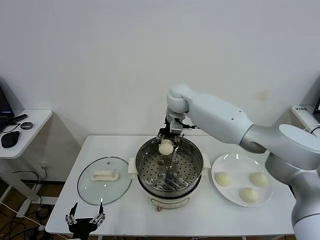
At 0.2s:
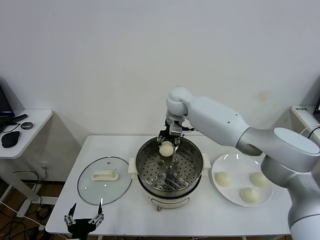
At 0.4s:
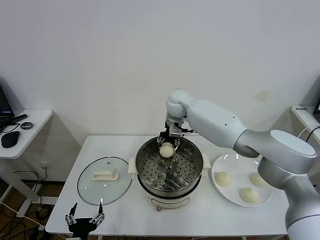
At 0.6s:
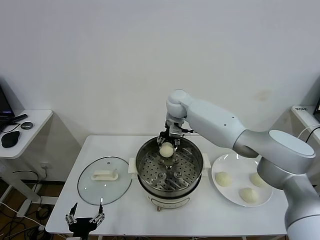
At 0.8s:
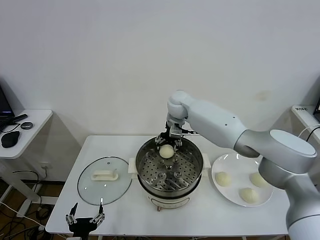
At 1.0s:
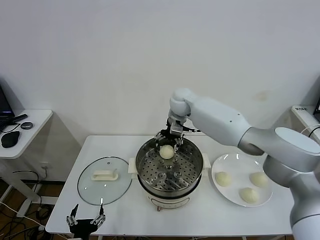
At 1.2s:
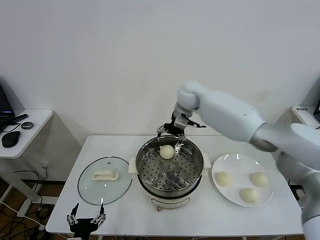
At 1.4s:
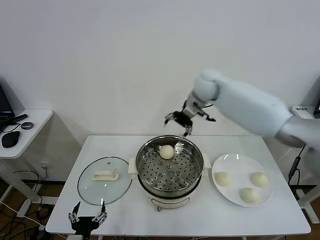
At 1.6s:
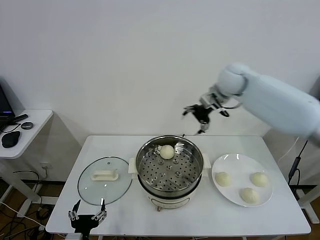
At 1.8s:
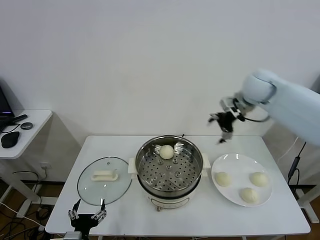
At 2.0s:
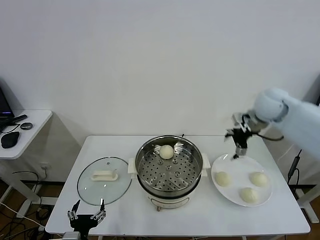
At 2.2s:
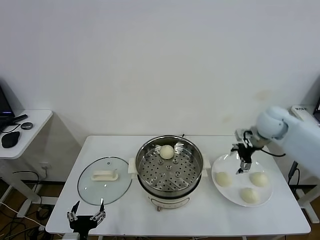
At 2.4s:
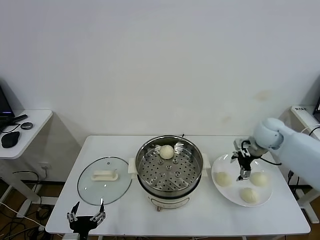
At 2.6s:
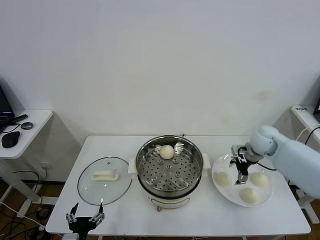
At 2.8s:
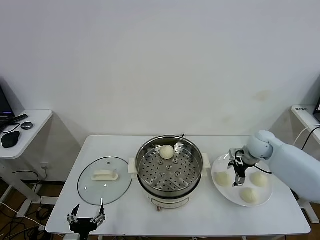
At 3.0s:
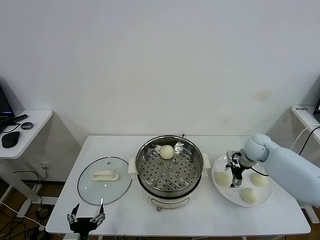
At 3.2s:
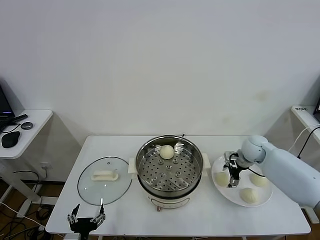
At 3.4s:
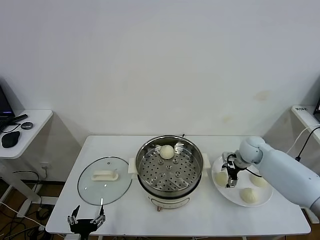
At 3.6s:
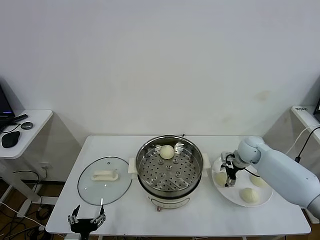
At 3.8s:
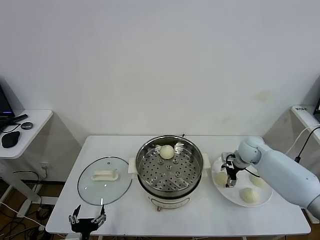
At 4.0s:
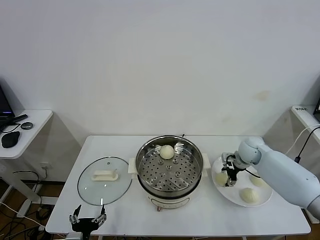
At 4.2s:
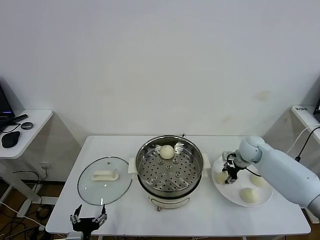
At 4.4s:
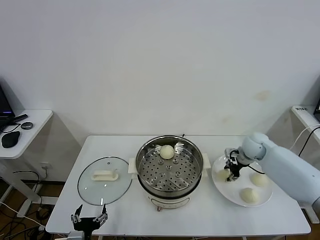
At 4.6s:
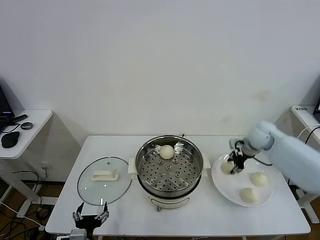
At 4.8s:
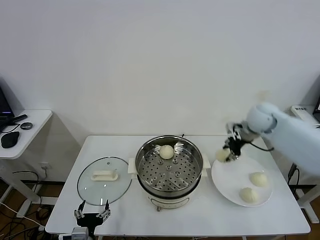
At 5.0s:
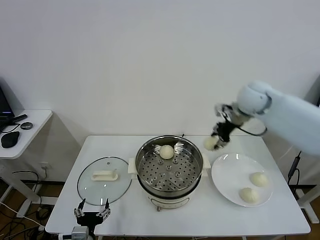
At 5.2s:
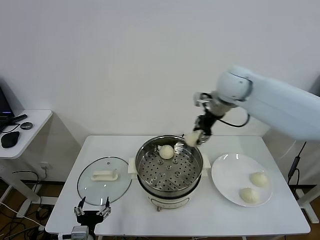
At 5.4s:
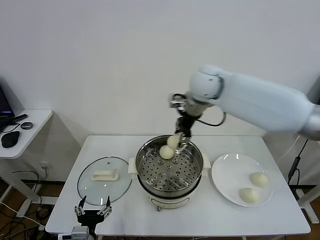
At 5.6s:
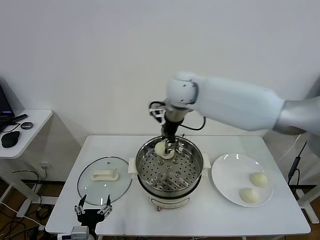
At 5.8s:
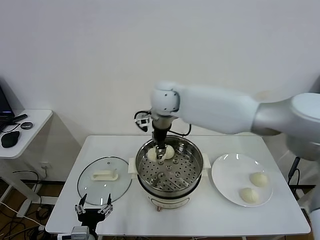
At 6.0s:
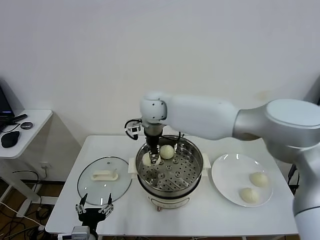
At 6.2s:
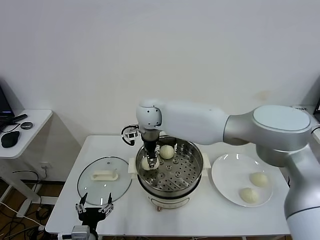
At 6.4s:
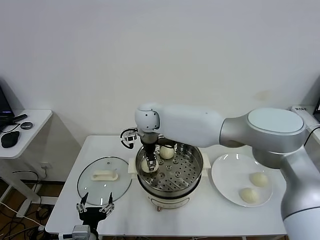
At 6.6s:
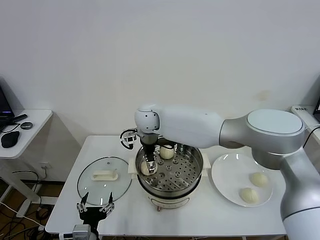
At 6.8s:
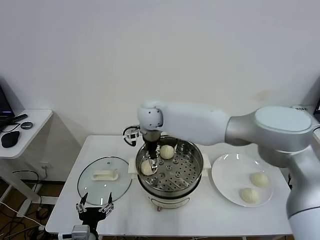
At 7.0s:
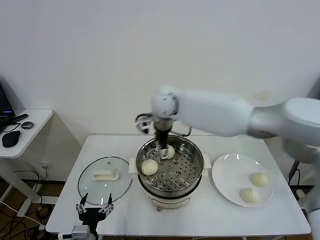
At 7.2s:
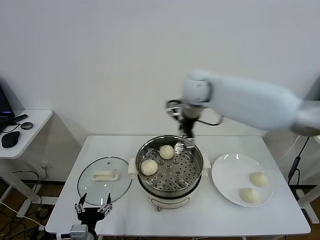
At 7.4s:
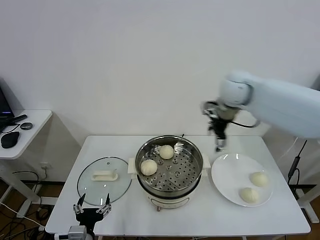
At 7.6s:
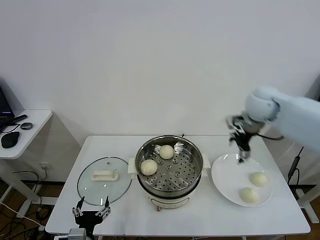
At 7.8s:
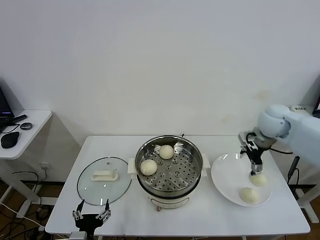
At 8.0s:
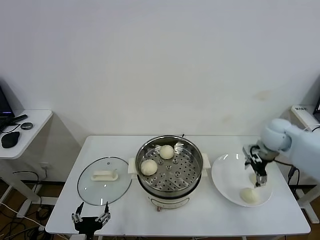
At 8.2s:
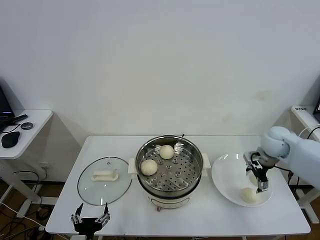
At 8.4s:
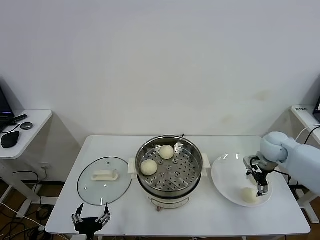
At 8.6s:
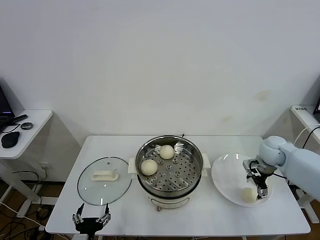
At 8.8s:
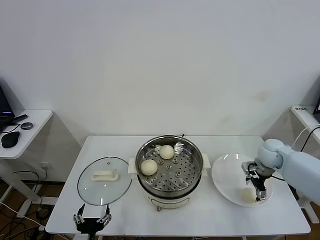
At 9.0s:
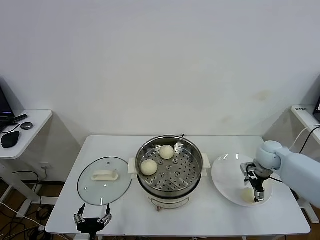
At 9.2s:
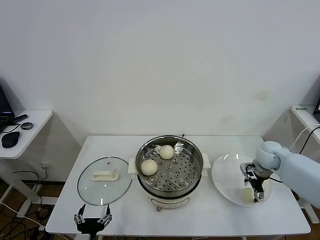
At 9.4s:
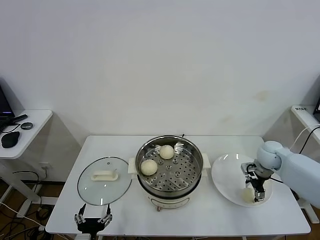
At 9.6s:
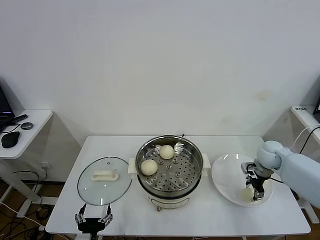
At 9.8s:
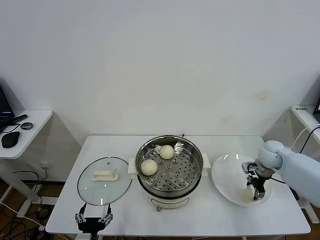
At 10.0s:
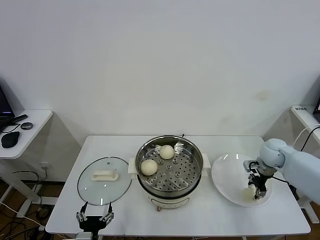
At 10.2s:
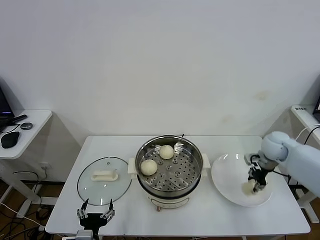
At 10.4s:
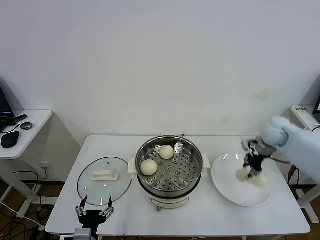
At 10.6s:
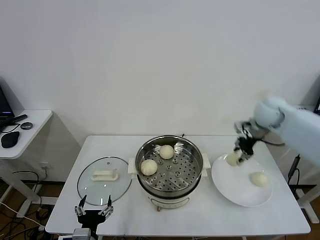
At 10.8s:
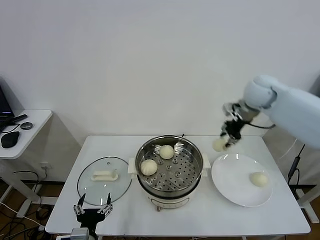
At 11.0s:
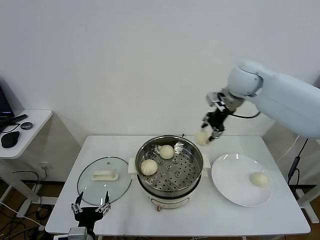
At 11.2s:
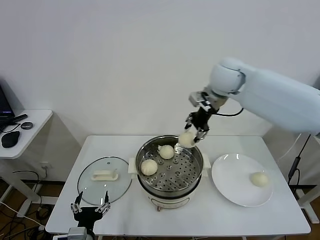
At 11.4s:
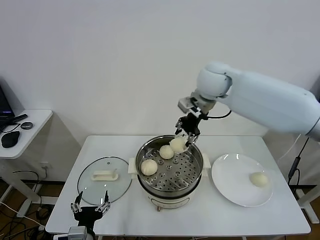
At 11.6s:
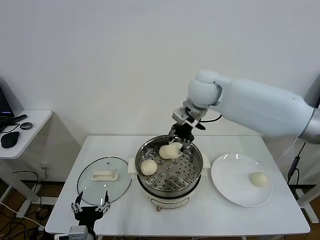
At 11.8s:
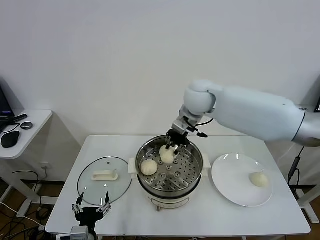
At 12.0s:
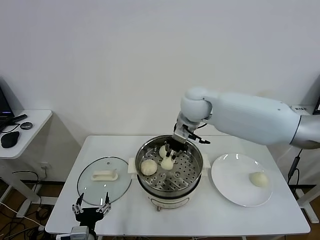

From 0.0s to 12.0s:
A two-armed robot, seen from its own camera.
Task of the whole recording: take steamed baozi put them in steamer.
Step, from 1.0s to 4.0s: Grasp the baozi in the plate with right gripper.
Step, from 4.2s to 6.8s: Place the baozi on the steamer with right gripper.
Step, from 7.0s to 9.8s: Grasp the baozi in the plate with right gripper.
From 0.0s to 1.6s: The right gripper heads to the right and upward, covering some 20 cm, and opens.
From 1.6s to 3.0s: The right gripper travels downward and to the right by approximately 25 cm.
From 3.0s to 4.4s: The right gripper closes.
From 4.4s to 6.0s: The right gripper heads to the left and upward, covering approximately 40 cm.
From 6.0s to 7.6s: The right gripper shifts roughly 35 cm to the right, and opens.
From 7.6s to 9.0s: The right gripper travels downward and to the right by approximately 20 cm.
From 9.0s to 10.4s: The right gripper travels upward by some 10 cm, and closes.
From 10.4s to 12.0s: The right gripper moves to the left, roughly 30 cm.

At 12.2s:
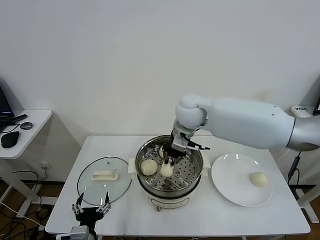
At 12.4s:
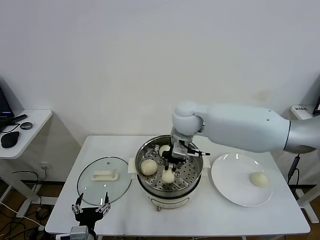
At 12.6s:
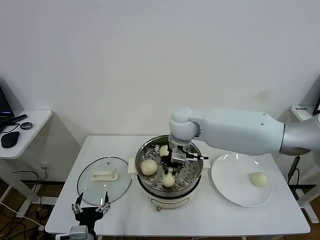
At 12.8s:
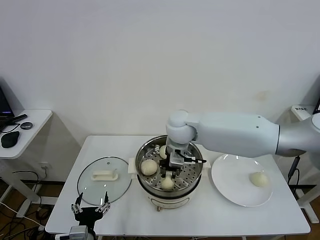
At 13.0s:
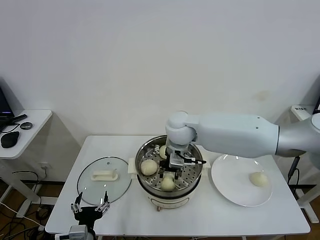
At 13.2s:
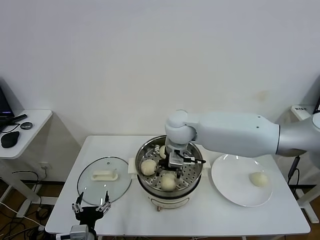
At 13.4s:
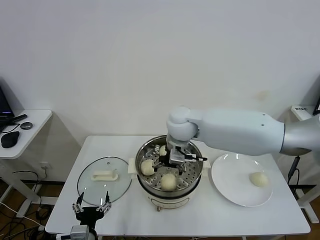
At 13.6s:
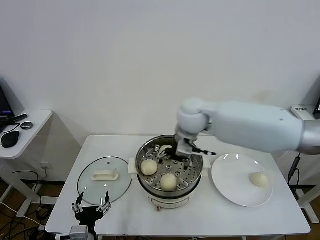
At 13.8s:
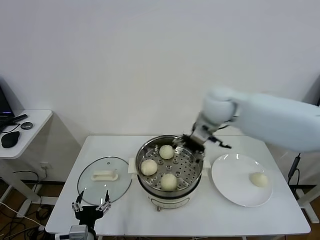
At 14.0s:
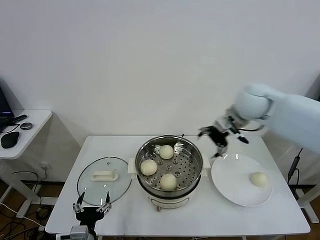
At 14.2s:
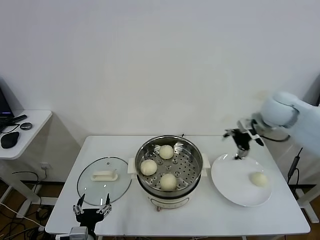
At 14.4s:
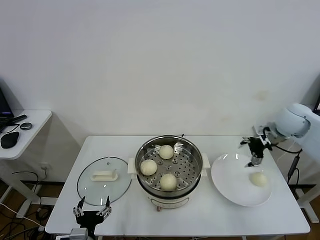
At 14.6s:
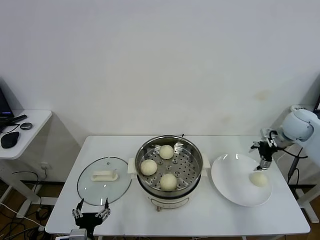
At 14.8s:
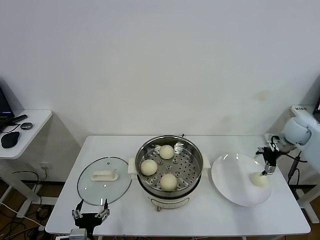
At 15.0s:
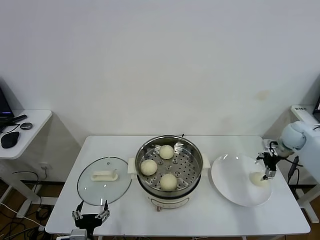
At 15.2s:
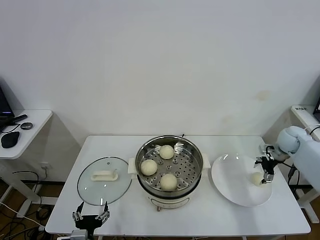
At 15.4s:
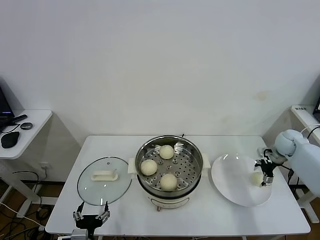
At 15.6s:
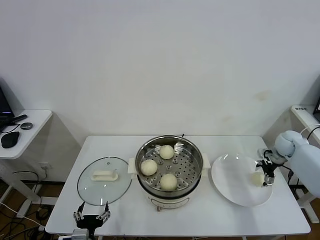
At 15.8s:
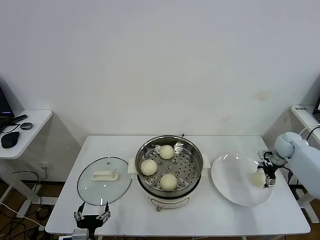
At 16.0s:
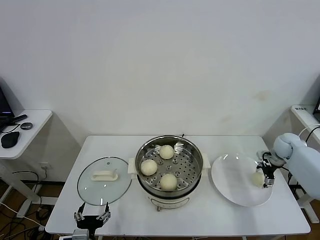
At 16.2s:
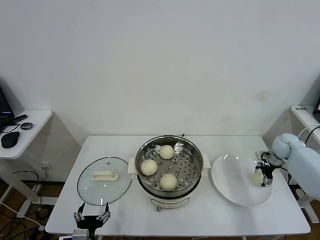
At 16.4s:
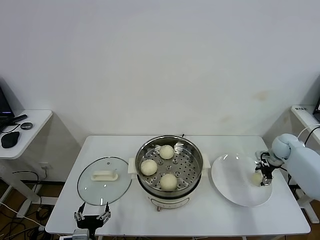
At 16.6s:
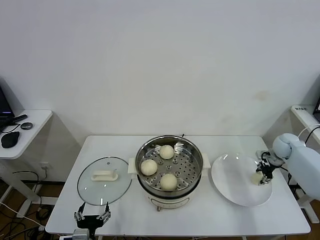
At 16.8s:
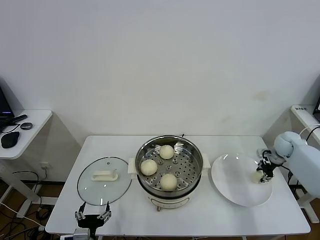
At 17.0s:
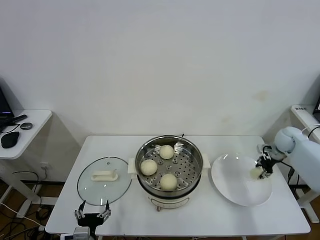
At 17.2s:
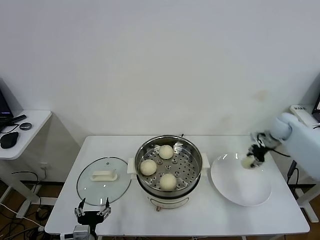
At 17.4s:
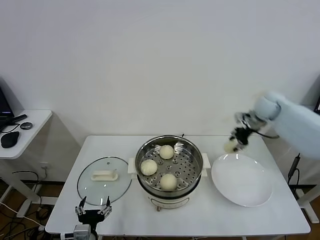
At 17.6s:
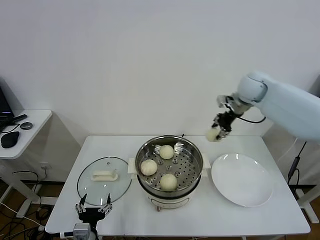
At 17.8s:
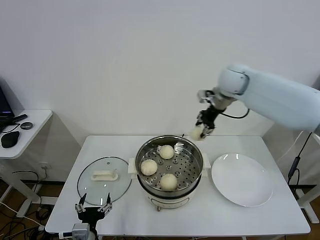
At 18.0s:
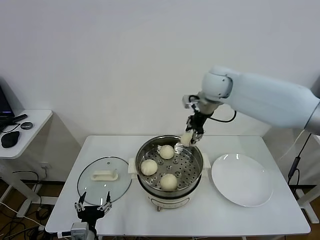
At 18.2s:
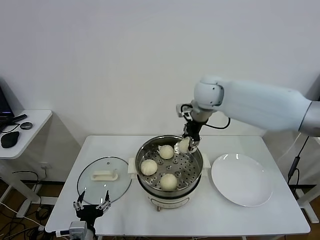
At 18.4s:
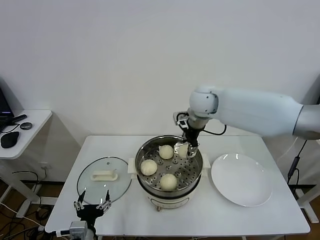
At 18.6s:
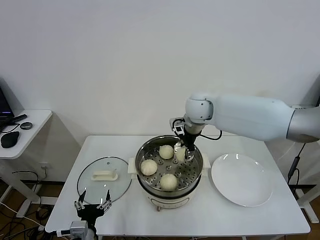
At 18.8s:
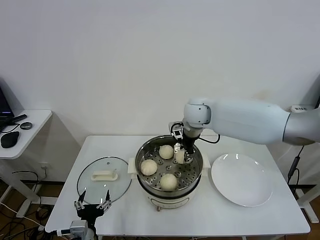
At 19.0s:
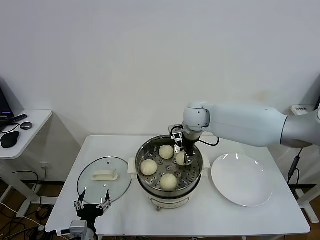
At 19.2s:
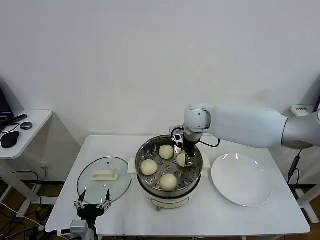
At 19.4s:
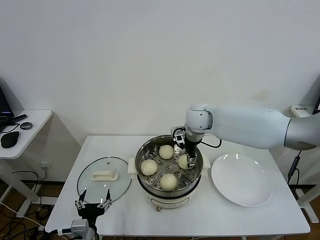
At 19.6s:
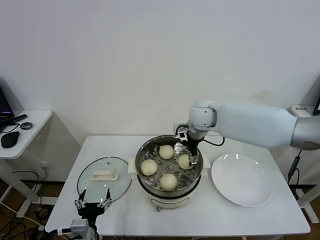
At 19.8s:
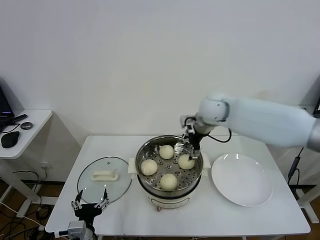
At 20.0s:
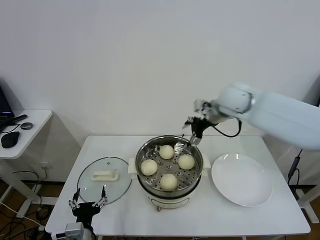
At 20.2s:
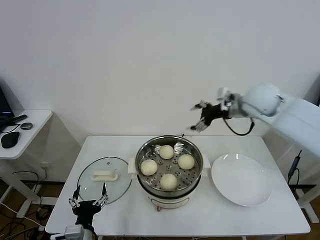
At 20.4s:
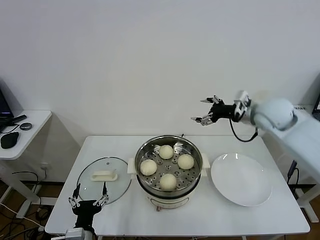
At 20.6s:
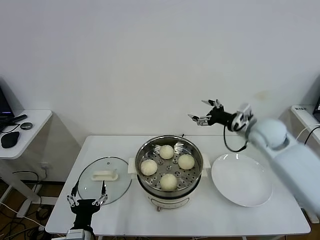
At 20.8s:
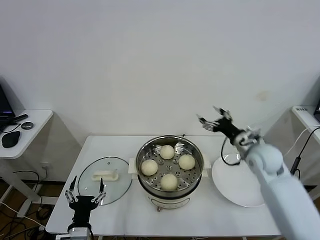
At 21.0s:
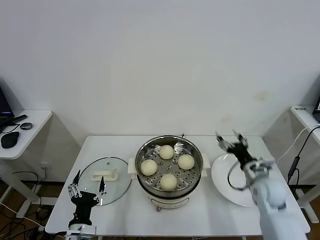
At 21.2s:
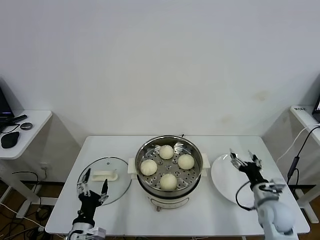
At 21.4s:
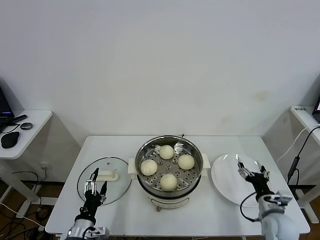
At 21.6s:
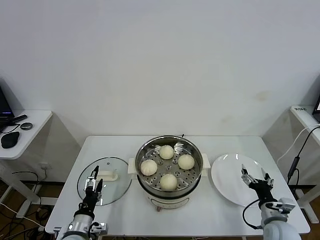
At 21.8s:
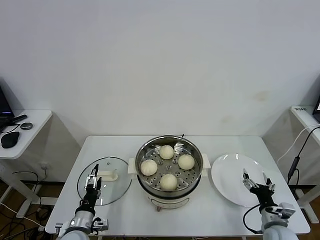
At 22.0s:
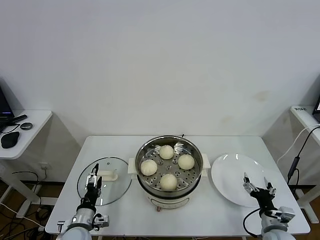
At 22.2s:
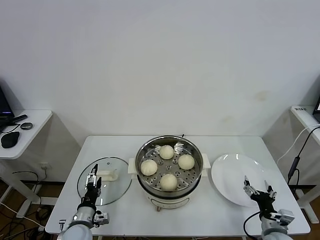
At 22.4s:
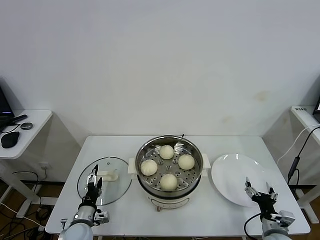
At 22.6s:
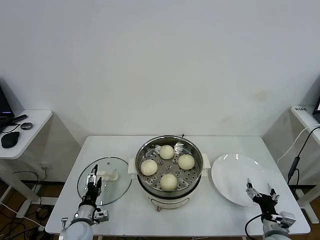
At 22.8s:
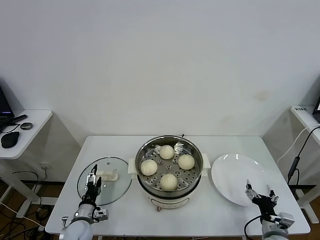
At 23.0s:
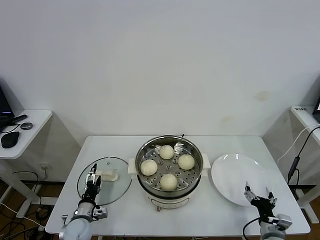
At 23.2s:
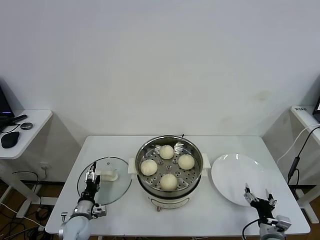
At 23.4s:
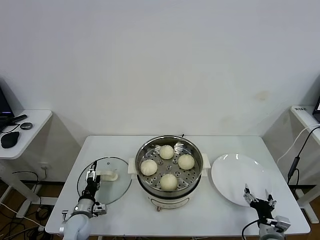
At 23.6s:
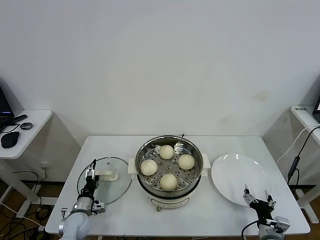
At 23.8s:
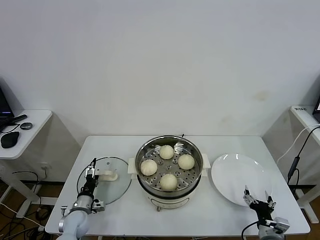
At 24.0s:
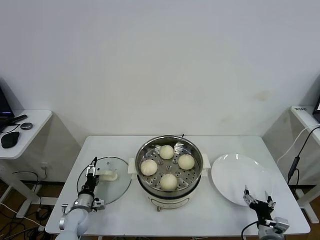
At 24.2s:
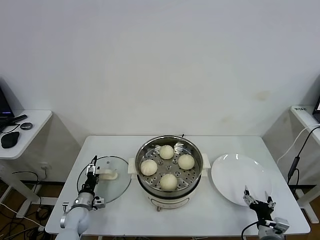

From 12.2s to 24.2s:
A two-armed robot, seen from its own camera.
Task of the whole recording: take steamed baozi put them in steamer.
Step, from 13.4s to 16.4s: Grasp the baozi in the plate with right gripper.
Step, from 16.6s to 19.6s: Place the baozi on the steamer with right gripper.
From 12.2s to 13.8s: The right gripper travels to the right by approximately 5 cm, and opens.
From 13.8s to 15.2s: The right gripper heads to the right and downward, covering some 40 cm.
From 15.2s to 16.6s: The right gripper closes up.
From 16.6s to 18.2s: The right gripper goes roughly 40 cm to the left and upward.
From 18.2s to 19.8s: The right gripper opens.
From 19.8s to 21.2s: The right gripper is displaced downward, backward and to the right by about 40 cm.
From 21.2s to 22.6s: The right gripper goes some 10 cm backward and downward. The left gripper goes about 10 cm forward and downward.
From 22.6s to 24.2s: The left gripper moves forward, about 5 cm.
